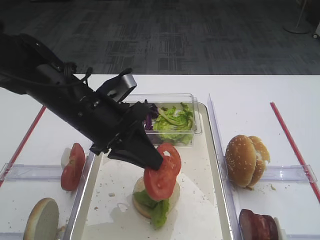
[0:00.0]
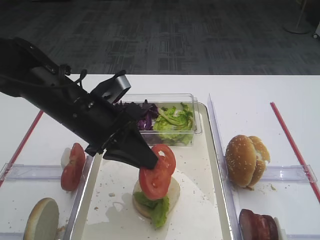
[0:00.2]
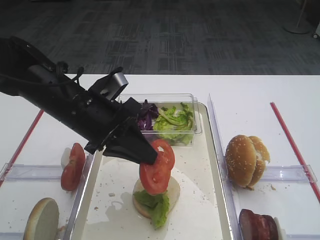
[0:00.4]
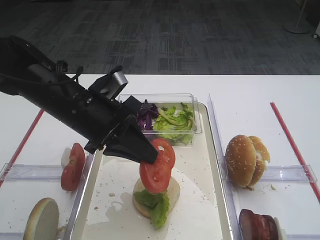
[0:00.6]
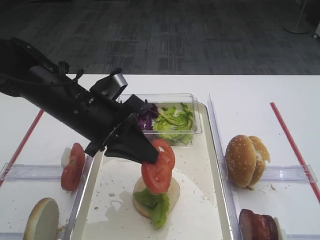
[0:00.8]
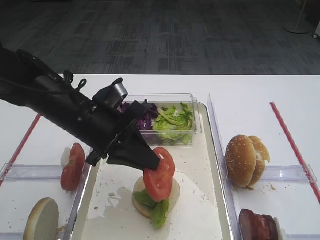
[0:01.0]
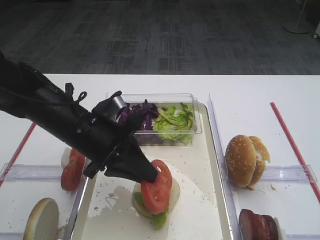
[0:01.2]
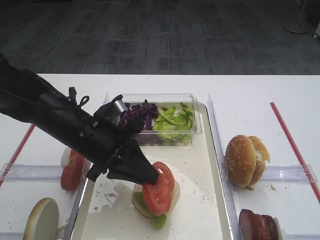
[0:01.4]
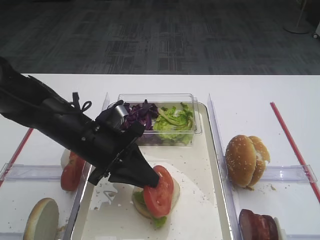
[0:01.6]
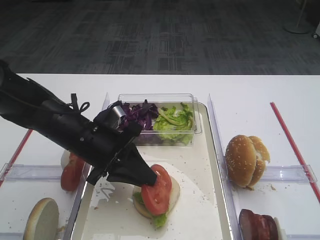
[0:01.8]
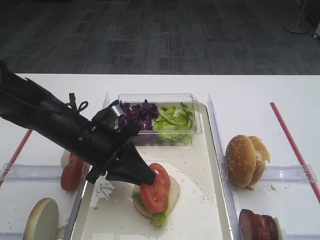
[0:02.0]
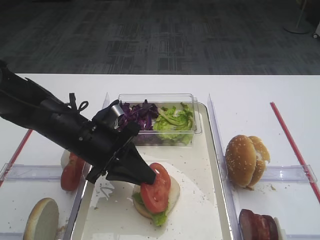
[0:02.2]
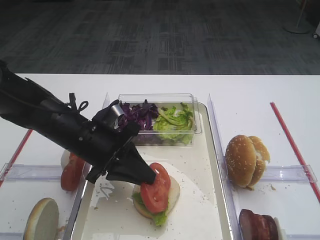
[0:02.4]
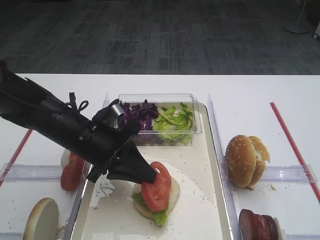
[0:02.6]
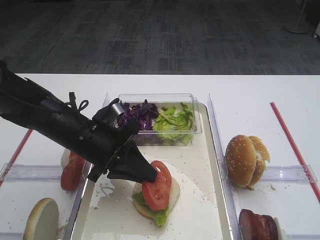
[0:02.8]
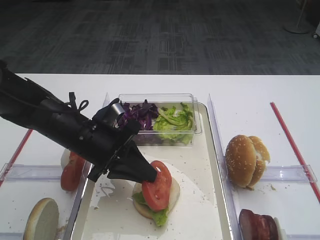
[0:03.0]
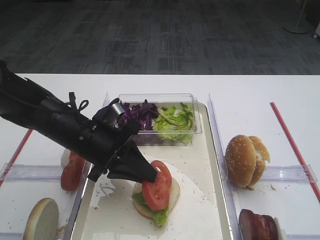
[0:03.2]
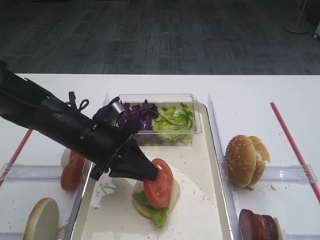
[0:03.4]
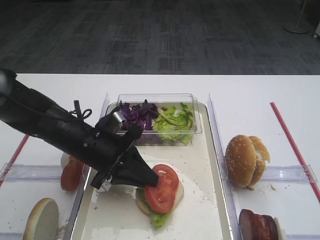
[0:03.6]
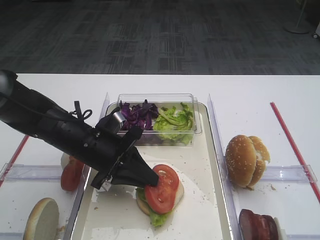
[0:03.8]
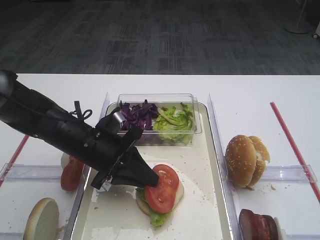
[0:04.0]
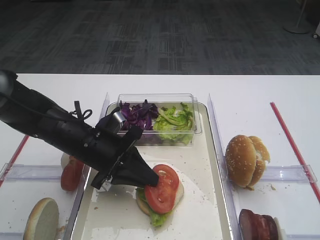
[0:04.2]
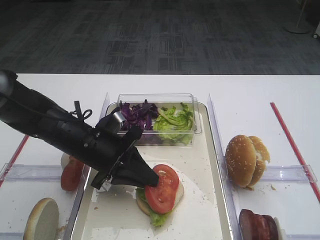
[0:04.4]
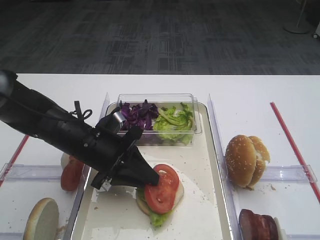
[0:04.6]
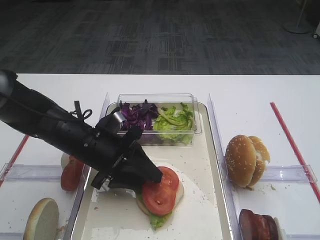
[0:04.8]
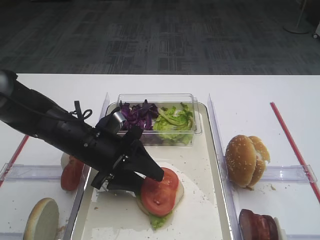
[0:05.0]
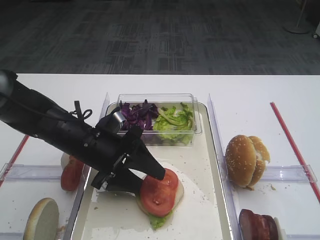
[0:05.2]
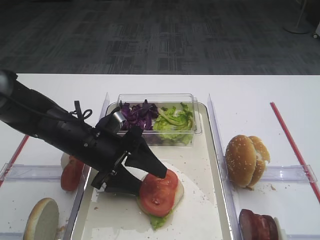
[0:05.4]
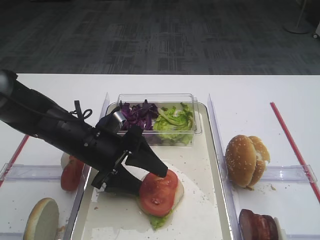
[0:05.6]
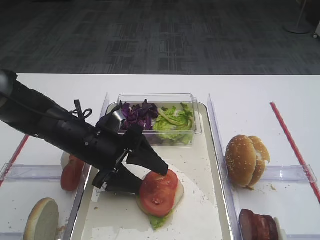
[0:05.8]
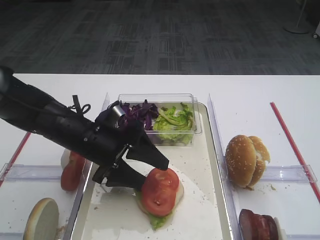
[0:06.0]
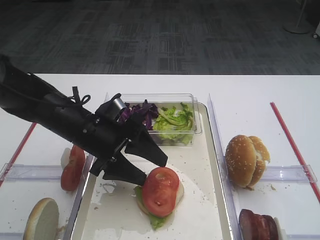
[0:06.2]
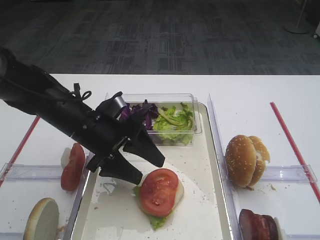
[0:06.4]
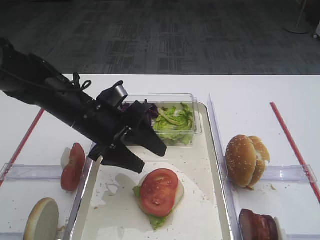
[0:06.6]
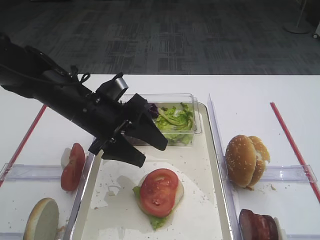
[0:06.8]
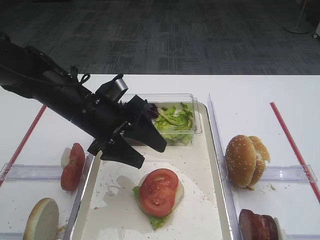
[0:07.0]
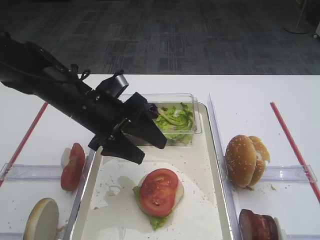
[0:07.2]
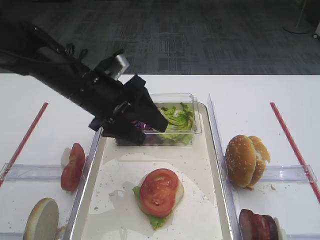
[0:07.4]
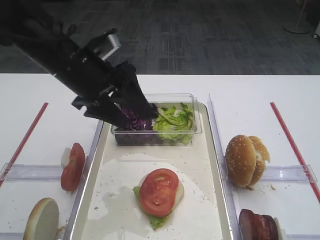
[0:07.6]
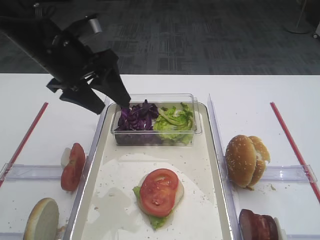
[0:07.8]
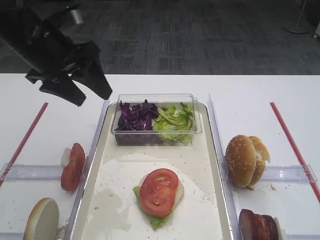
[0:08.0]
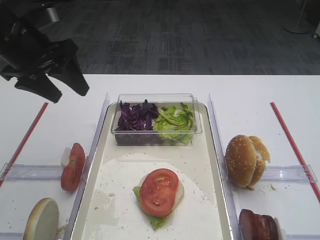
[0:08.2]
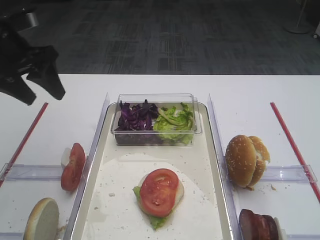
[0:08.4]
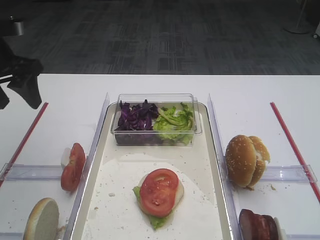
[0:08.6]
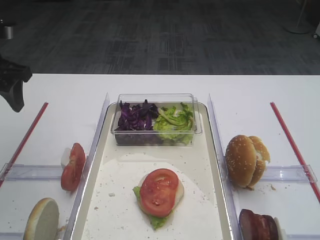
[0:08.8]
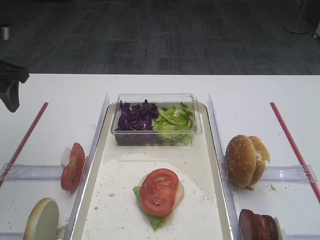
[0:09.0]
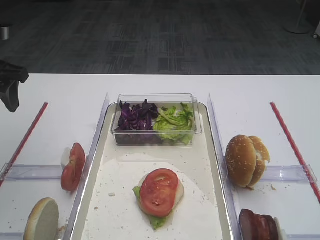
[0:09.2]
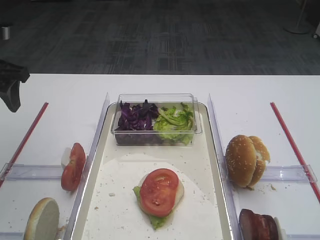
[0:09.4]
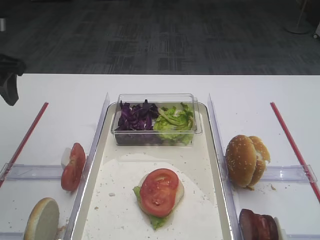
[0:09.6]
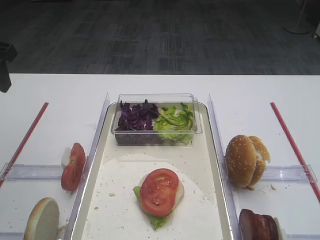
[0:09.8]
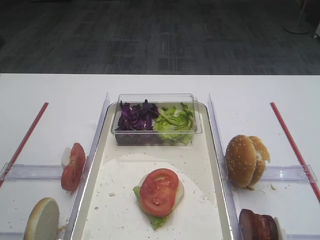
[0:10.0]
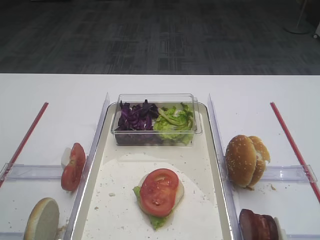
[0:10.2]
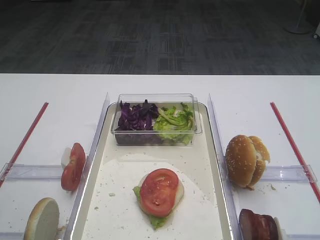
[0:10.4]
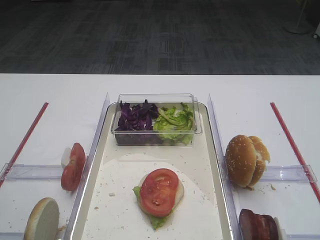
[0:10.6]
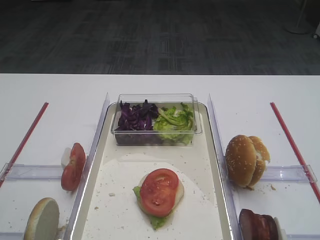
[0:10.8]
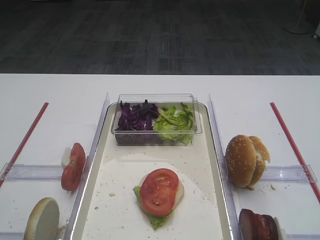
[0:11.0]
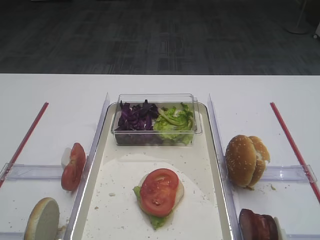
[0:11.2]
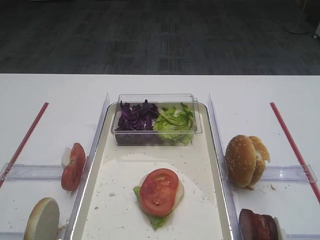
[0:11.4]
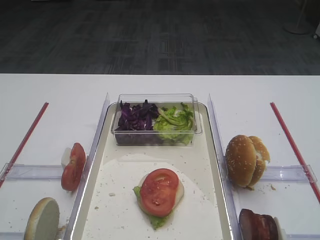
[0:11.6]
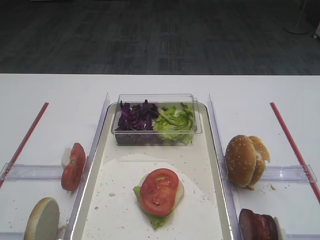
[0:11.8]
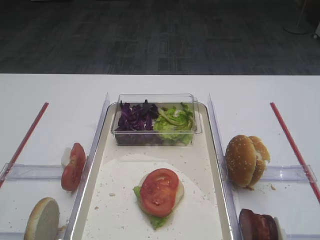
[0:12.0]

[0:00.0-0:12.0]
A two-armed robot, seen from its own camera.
Step, 0:00.0 to 0:06.4: Place the tomato slice on the lettuce leaf with the left gripper.
0:00.0 to 0:01.6: The left gripper goes approximately 5 cm downward.
0:01.6 to 0:03.0: Both grippers stay about where they are.
0:03.0 to 0:04.4: There are only small adjustments of the grippers.
0:04.4 to 0:06.0: The left gripper opens its fingers.
0:06.0 to 0:07.6: The left gripper heads upward, covering roughly 10 cm.
0:07.6 to 0:09.0: The left gripper travels to the left by about 15 cm.
0:09.0 to 0:10.4: The left gripper moves backward and upward, approximately 15 cm.

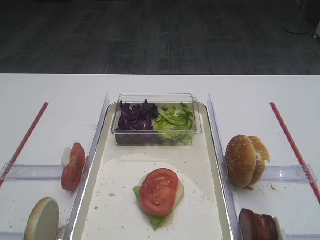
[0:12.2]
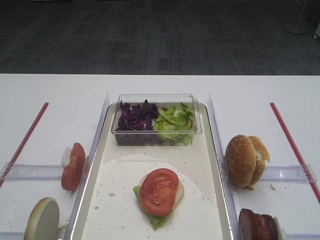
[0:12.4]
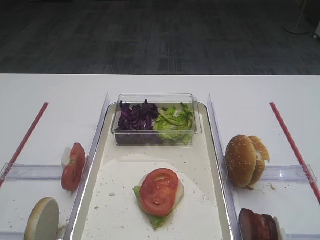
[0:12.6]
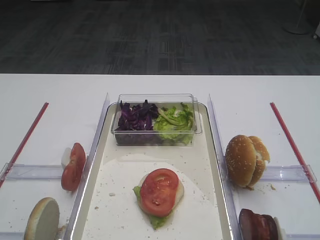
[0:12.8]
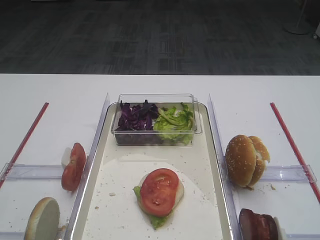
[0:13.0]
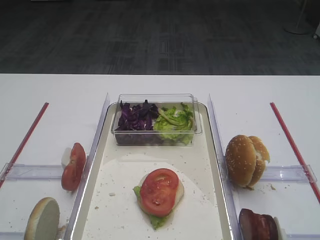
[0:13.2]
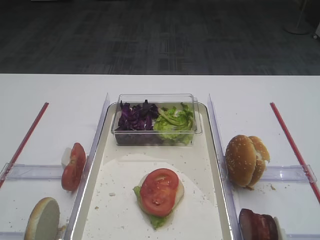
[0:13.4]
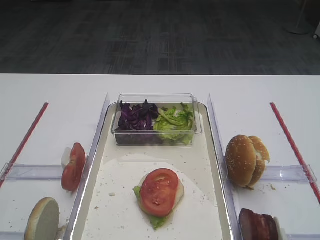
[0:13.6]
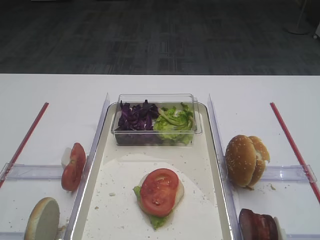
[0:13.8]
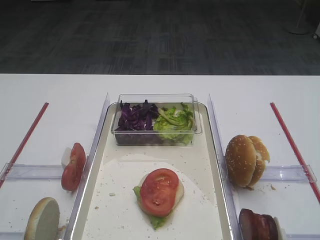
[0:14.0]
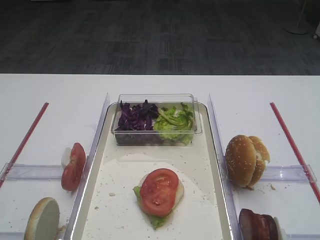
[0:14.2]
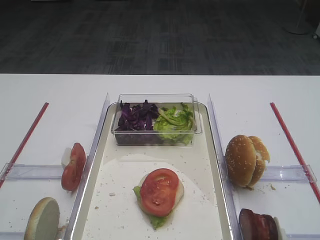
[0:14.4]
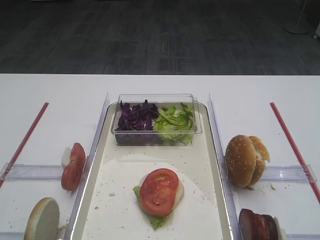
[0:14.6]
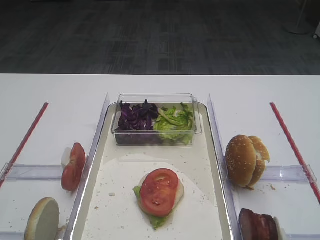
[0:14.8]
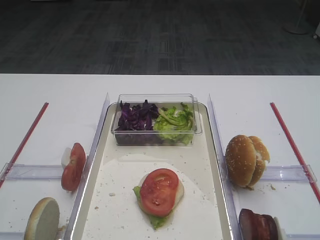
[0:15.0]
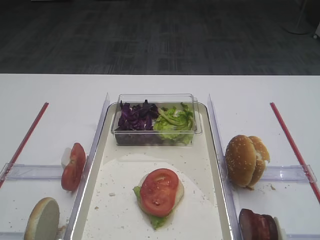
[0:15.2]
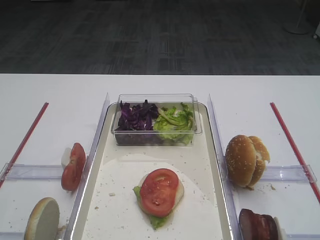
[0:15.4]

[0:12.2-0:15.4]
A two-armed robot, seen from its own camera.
0:13.8 to 0:15.4: The two grippers keep their place.

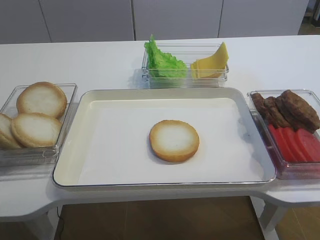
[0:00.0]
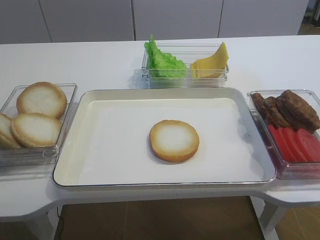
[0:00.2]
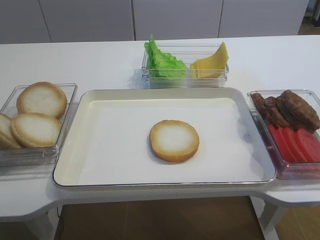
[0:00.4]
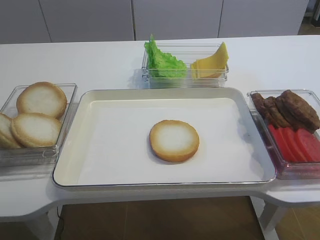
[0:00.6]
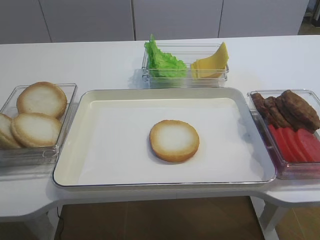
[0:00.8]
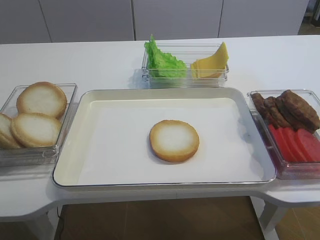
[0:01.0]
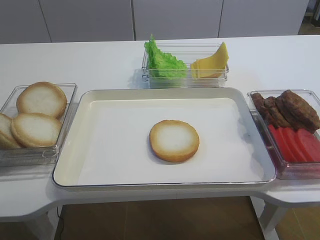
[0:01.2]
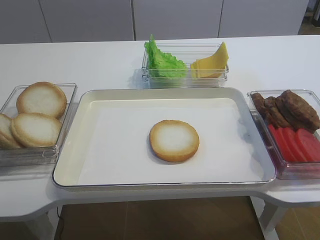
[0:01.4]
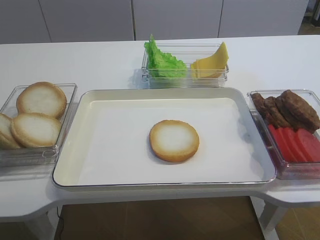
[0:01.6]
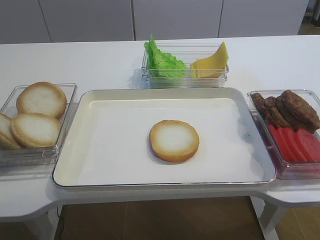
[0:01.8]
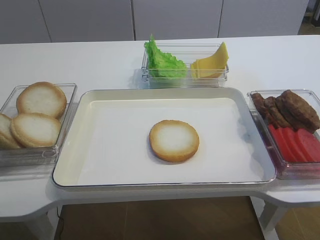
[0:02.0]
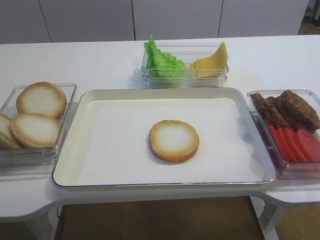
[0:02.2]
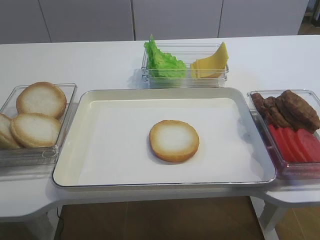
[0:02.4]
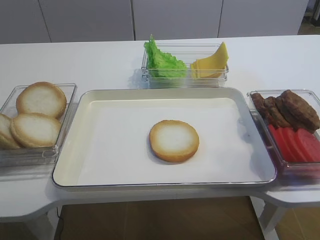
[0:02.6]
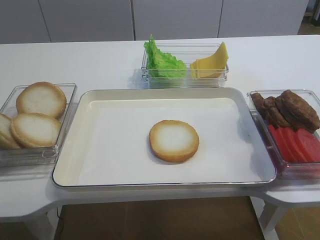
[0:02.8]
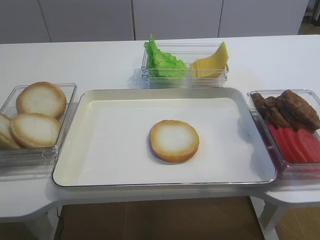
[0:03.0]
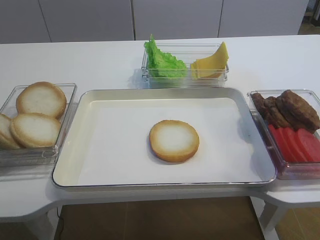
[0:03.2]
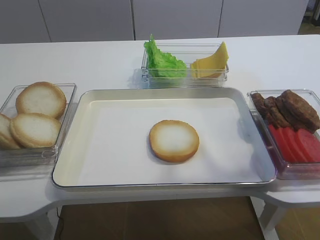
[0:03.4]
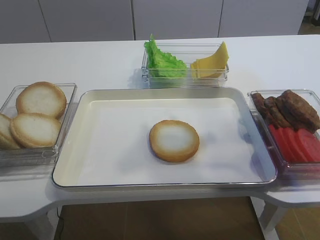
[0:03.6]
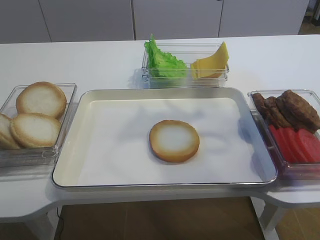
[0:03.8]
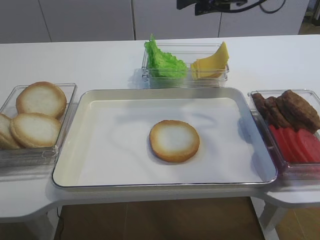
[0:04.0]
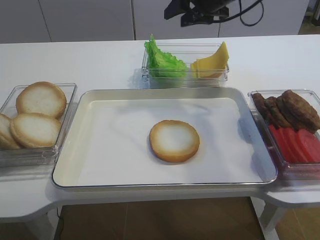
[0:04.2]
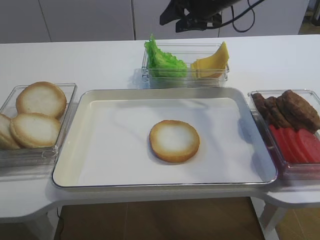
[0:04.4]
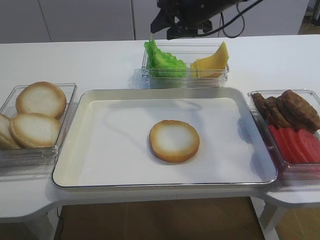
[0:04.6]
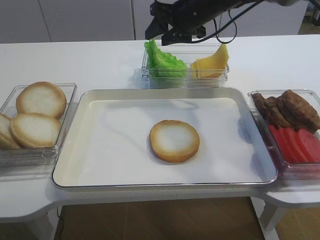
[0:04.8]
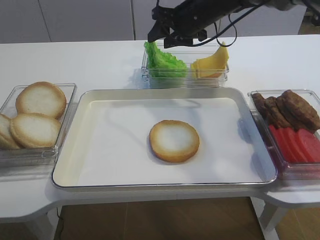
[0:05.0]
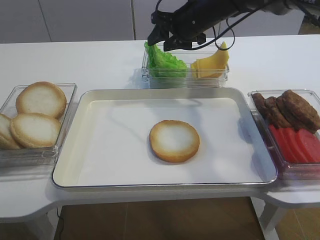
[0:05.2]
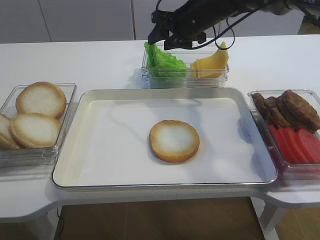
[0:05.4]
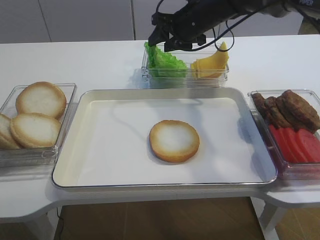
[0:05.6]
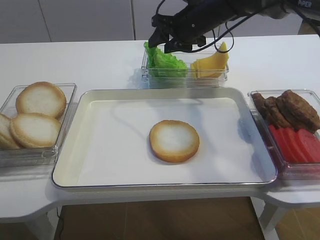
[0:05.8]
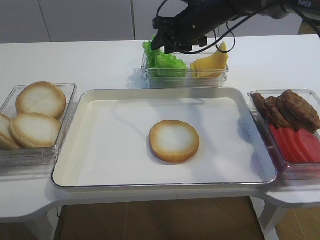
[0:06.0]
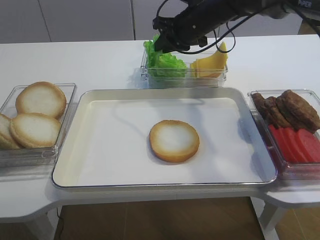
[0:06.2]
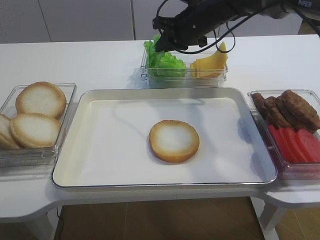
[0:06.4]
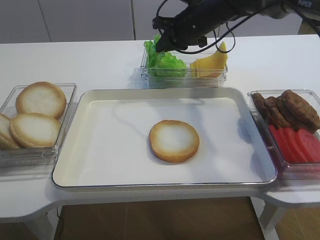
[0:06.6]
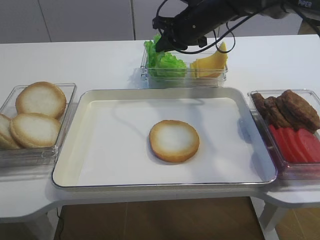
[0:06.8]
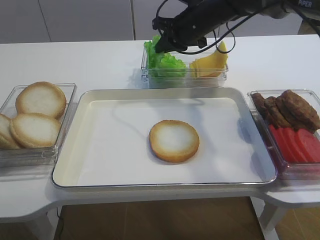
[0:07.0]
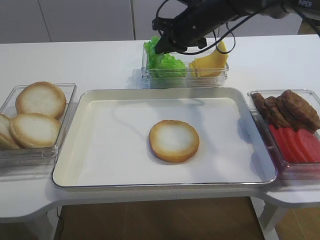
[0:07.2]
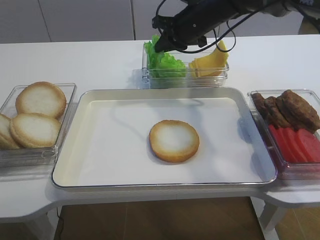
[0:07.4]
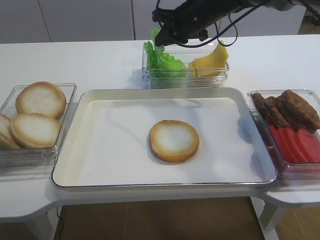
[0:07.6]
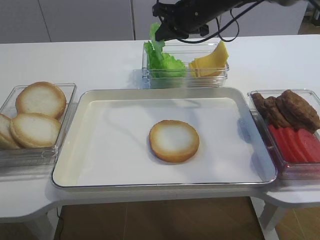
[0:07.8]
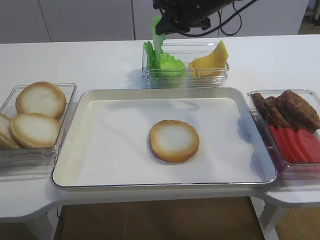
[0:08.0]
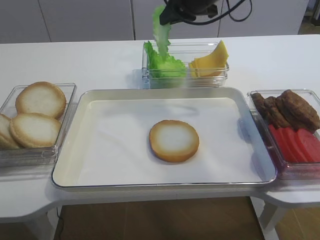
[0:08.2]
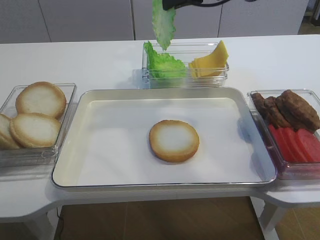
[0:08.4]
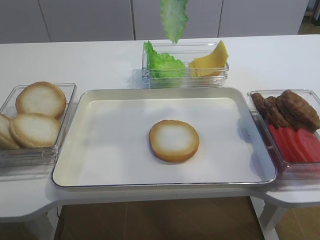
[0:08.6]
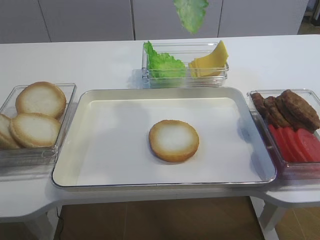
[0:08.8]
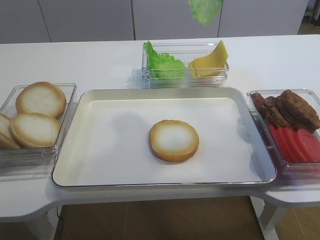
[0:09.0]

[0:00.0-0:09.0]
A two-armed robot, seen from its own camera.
Step, 0:00.0 to 0:08.0: Pick up the lettuce leaf with the right gripper.
0:01.6 to 0:03.0: The right gripper heads forward and upward, covering some 20 cm.
0:03.0 to 0:04.4: The right gripper heads forward and to the left, covering approximately 35 cm.
0:04.4 to 0:06.0: The right gripper moves some 5 cm.
0:06.0 to 0:07.6: The right gripper closes up.
0:07.6 to 0:09.0: The right gripper moves upward and backward, approximately 25 cm.
